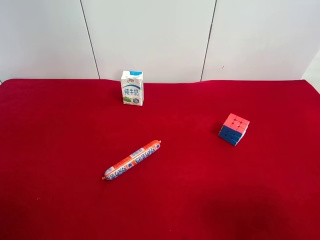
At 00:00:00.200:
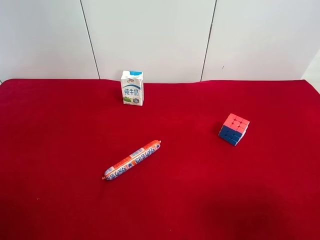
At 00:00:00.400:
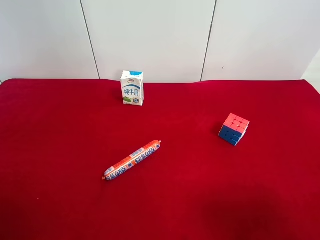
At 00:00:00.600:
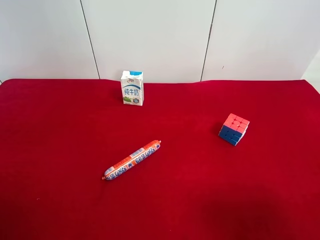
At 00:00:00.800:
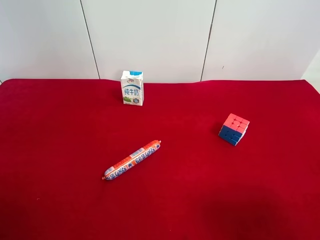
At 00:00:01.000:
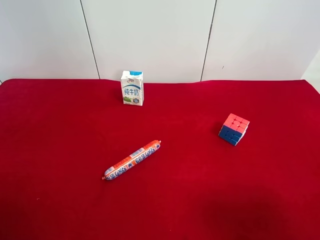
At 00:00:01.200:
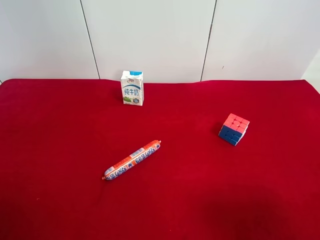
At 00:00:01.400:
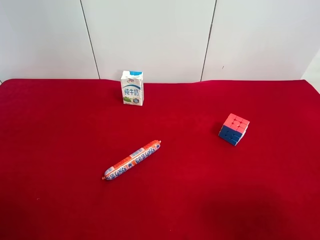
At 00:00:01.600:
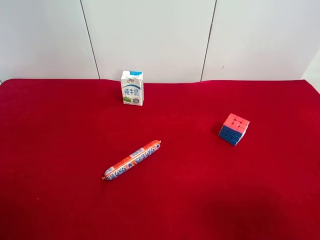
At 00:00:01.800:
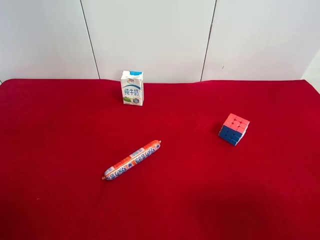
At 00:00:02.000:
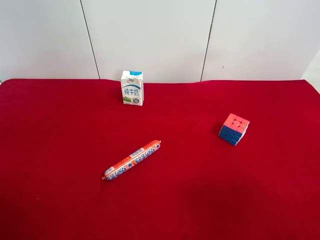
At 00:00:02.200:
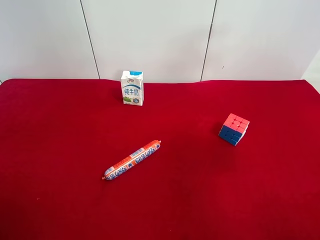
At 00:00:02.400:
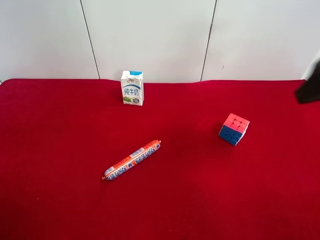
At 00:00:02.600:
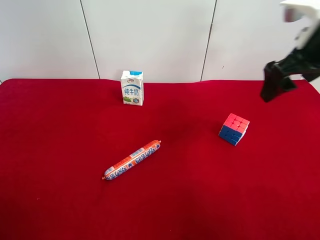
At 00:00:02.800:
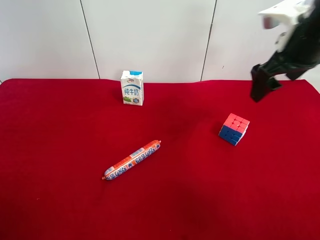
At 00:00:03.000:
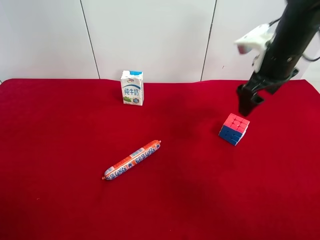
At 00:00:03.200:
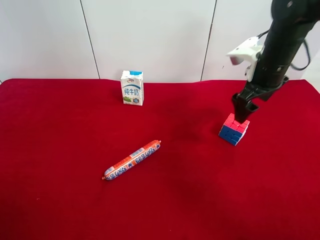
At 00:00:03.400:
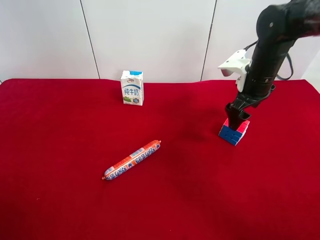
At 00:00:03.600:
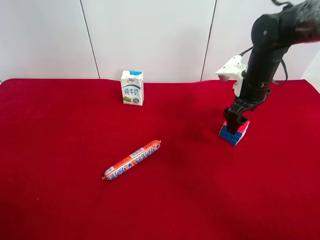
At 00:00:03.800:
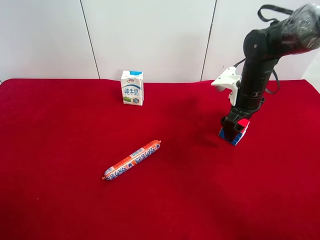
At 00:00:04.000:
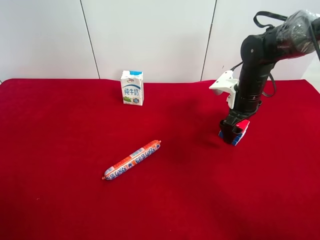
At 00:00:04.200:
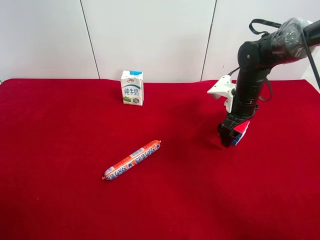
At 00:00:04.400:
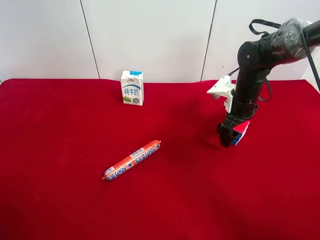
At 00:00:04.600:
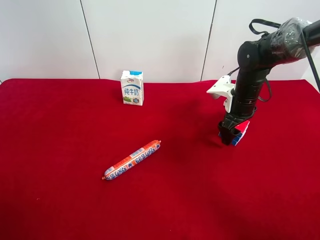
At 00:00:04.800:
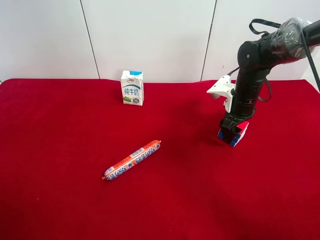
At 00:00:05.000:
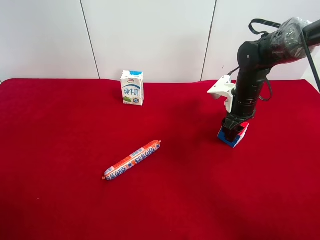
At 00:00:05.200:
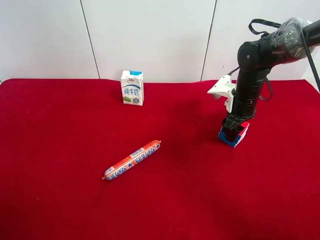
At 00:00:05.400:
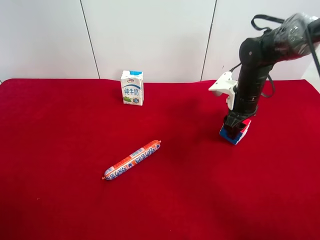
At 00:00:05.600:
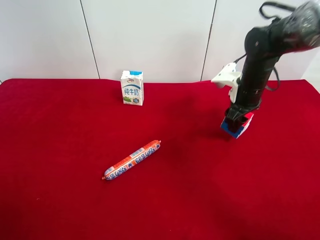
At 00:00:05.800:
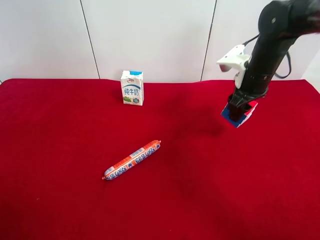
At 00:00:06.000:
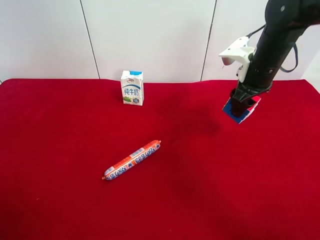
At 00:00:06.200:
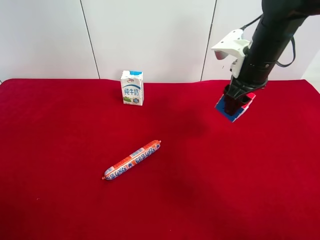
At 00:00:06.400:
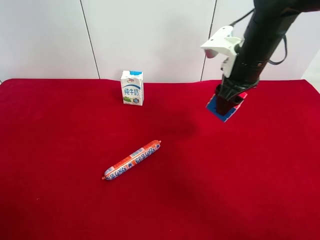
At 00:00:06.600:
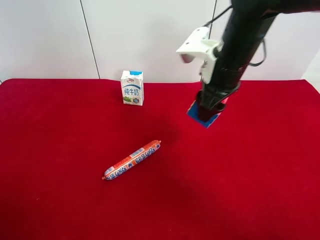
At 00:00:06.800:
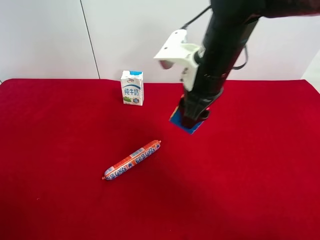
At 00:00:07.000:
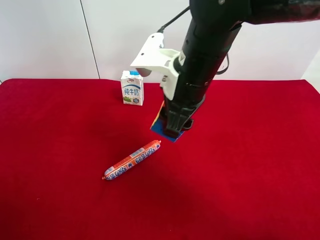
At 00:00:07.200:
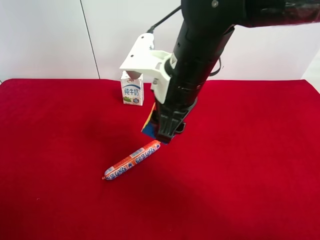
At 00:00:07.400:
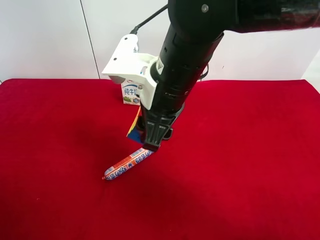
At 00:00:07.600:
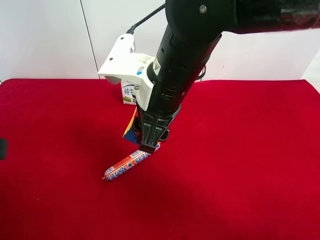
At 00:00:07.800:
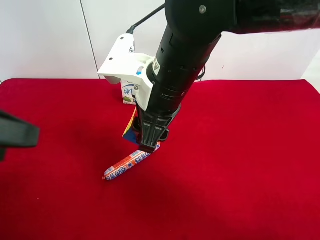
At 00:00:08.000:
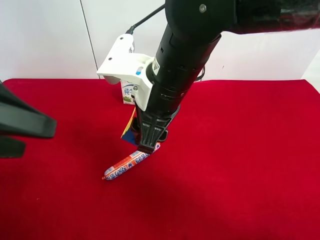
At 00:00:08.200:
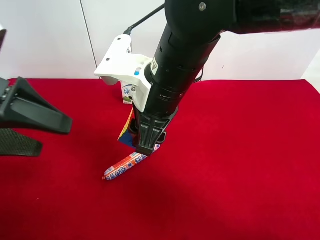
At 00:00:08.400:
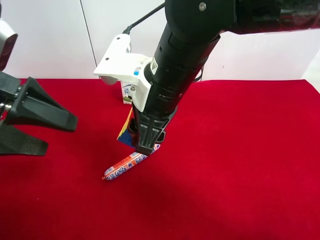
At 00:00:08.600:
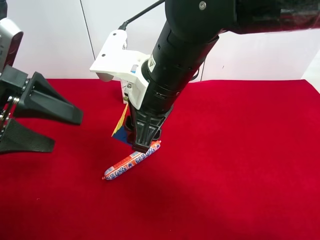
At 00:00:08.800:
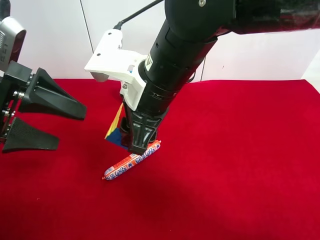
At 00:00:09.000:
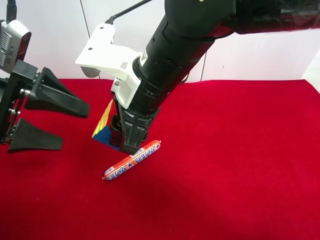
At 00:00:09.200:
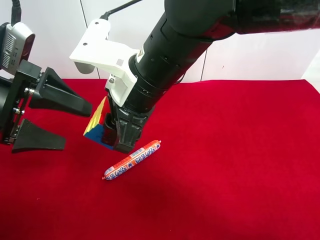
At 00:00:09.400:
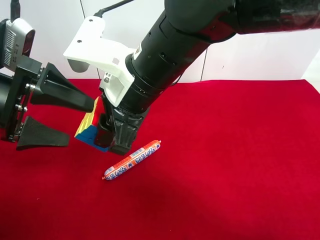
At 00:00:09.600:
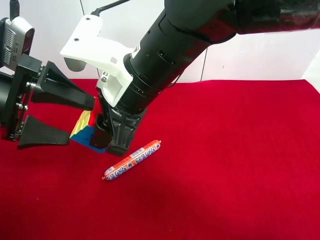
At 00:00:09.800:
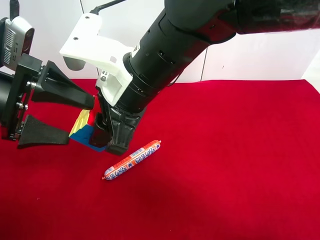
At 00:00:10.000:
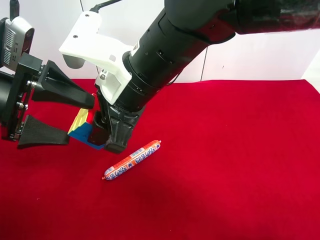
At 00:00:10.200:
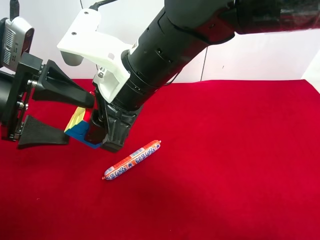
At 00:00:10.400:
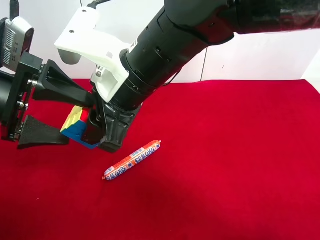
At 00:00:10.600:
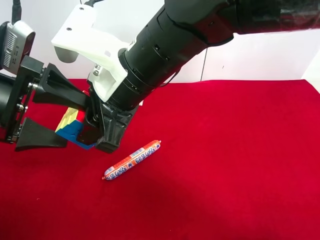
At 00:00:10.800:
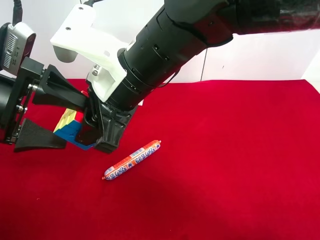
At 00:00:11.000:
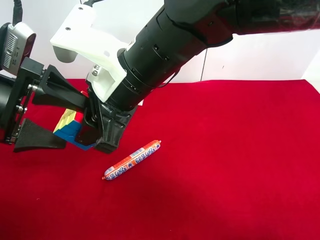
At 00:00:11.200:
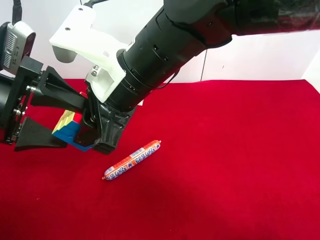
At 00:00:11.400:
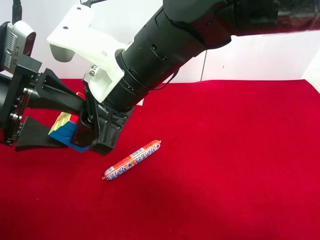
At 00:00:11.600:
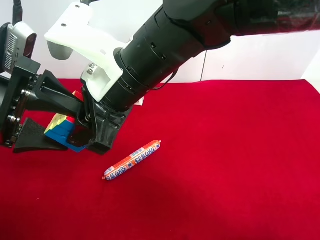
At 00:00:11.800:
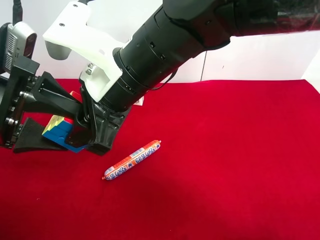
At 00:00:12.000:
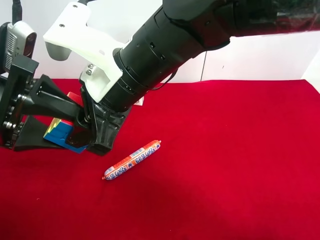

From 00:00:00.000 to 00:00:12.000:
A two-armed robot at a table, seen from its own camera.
Task of the whole recording: use the right gripper to pick up the item and transfer it from the right gripper to the left gripper.
Step, from 00:00:00.000 to 00:00:04.800: Use the right gripper to grab the Rubik's Cube on the right side of the table.
From 00:00:00.000 to 00:00:01.600: Neither gripper changes place.
From 00:00:01.600 to 00:00:03.000: The right gripper moves forward, approximately 35 cm.
From 00:00:03.000 to 00:00:04.400: The right gripper is displaced downward by approximately 15 cm.
From 00:00:04.400 to 00:00:06.000: The right gripper goes approximately 10 cm upward, and closes.
From 00:00:06.000 to 00:00:07.600: The right gripper goes some 25 cm to the left and backward; the left gripper moves forward, some 10 cm.
From 00:00:07.600 to 00:00:09.000: The left gripper goes some 10 cm forward and downward.
From 00:00:09.000 to 00:00:10.400: The grippers move only a little.
From 00:00:10.400 to 00:00:12.000: The left gripper closes its fingers.

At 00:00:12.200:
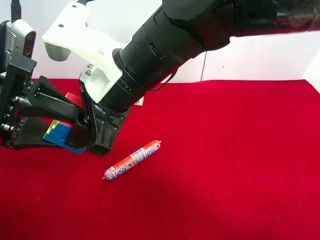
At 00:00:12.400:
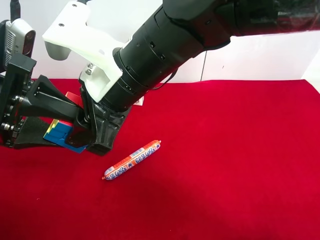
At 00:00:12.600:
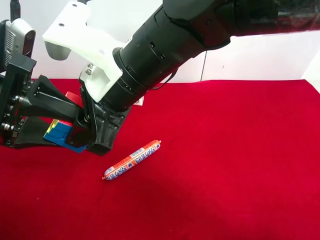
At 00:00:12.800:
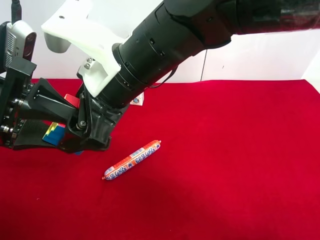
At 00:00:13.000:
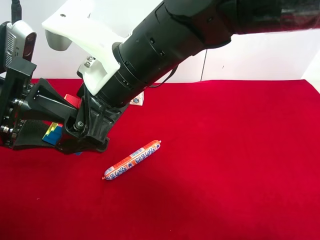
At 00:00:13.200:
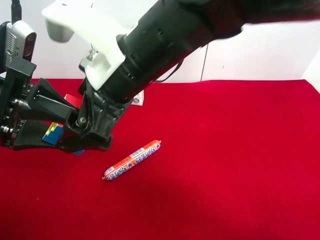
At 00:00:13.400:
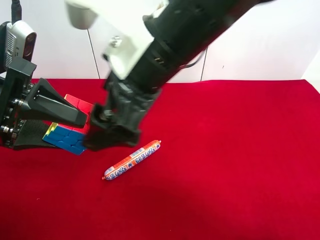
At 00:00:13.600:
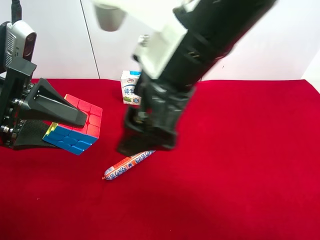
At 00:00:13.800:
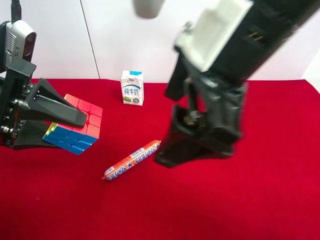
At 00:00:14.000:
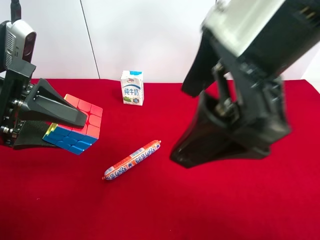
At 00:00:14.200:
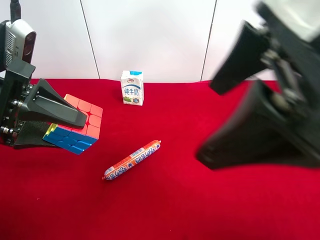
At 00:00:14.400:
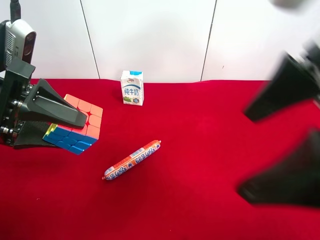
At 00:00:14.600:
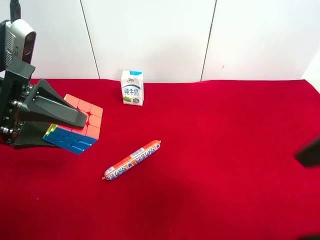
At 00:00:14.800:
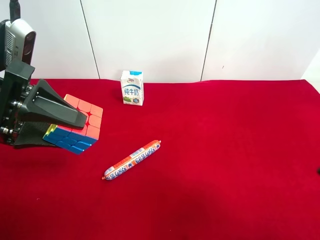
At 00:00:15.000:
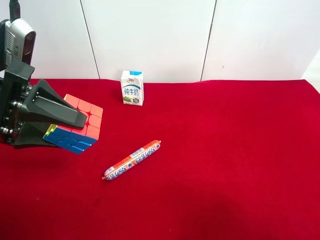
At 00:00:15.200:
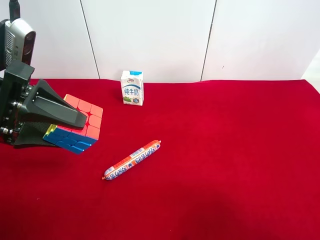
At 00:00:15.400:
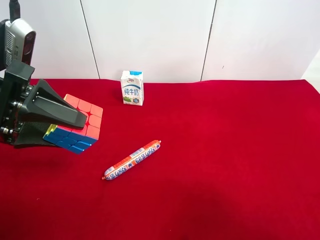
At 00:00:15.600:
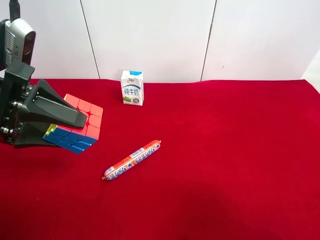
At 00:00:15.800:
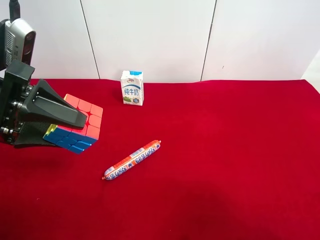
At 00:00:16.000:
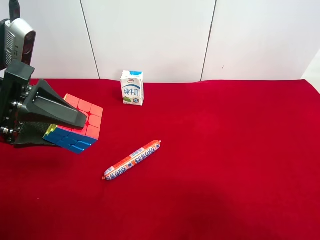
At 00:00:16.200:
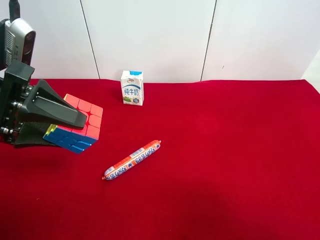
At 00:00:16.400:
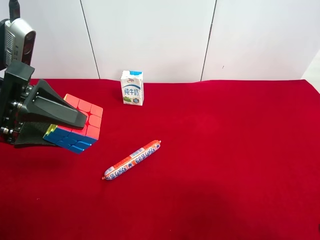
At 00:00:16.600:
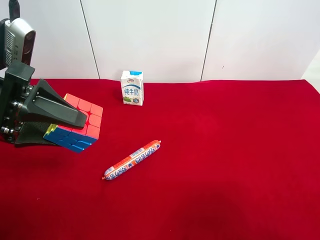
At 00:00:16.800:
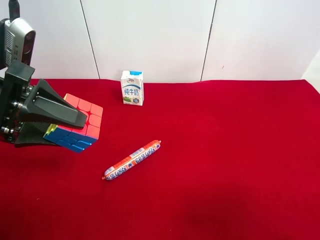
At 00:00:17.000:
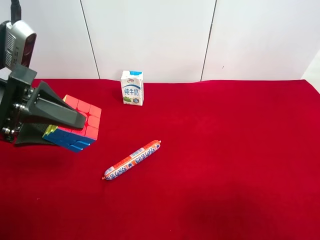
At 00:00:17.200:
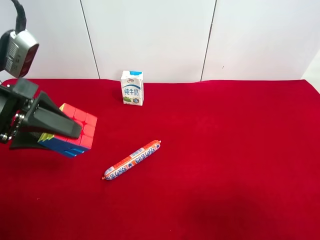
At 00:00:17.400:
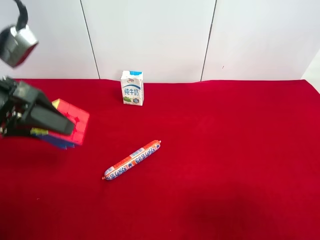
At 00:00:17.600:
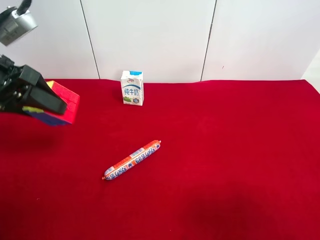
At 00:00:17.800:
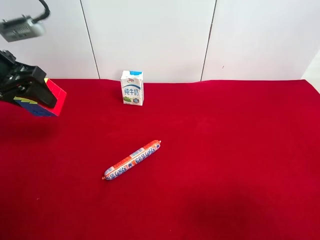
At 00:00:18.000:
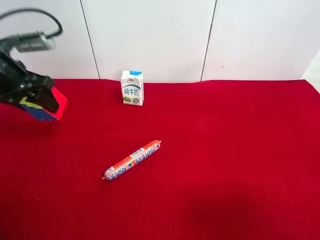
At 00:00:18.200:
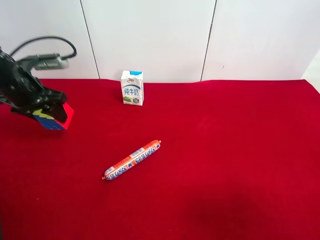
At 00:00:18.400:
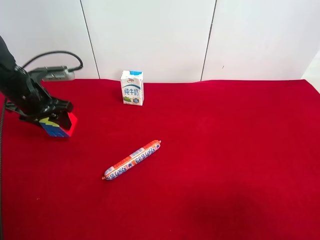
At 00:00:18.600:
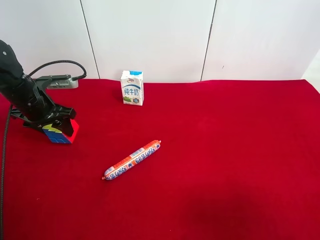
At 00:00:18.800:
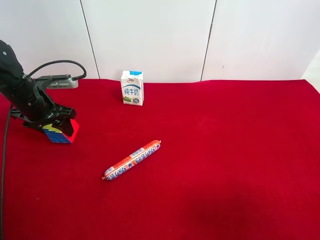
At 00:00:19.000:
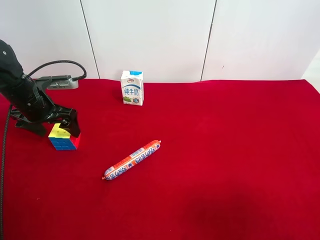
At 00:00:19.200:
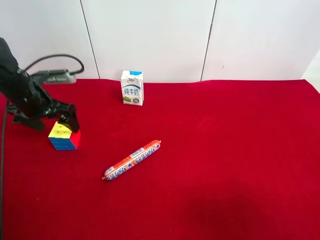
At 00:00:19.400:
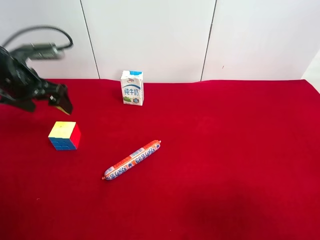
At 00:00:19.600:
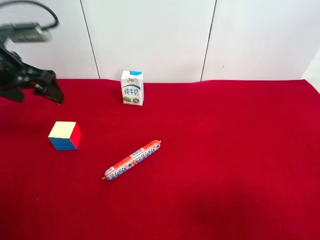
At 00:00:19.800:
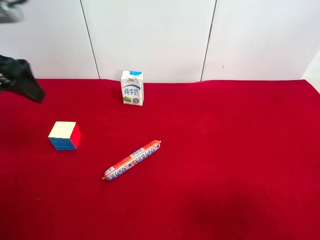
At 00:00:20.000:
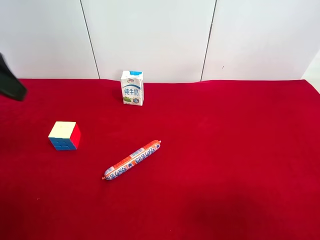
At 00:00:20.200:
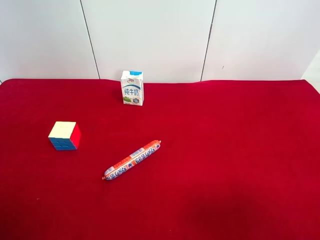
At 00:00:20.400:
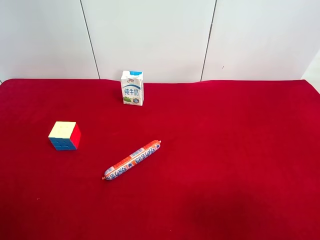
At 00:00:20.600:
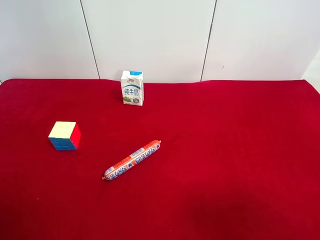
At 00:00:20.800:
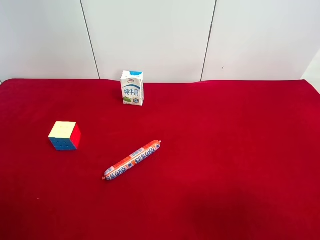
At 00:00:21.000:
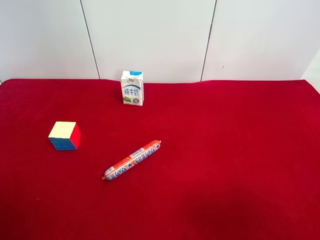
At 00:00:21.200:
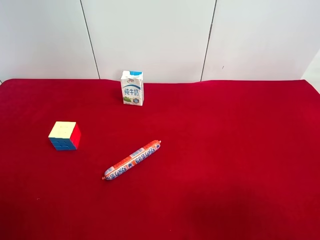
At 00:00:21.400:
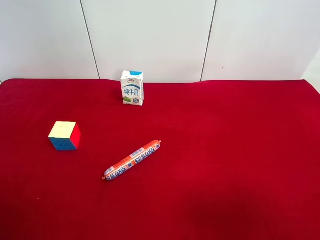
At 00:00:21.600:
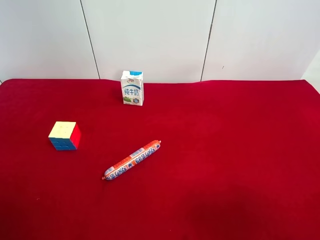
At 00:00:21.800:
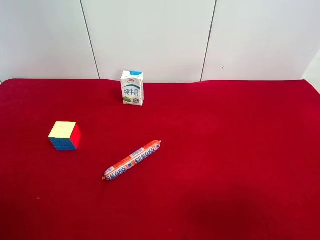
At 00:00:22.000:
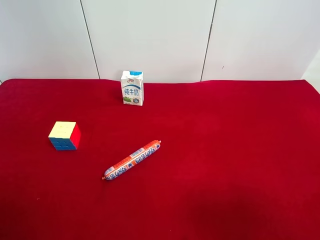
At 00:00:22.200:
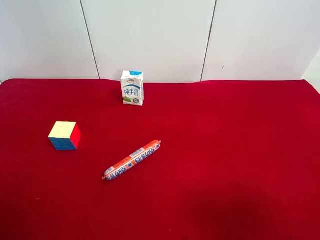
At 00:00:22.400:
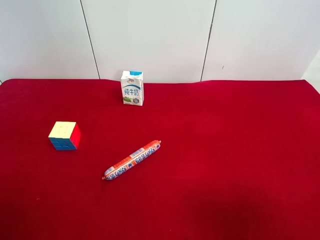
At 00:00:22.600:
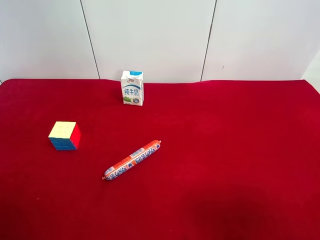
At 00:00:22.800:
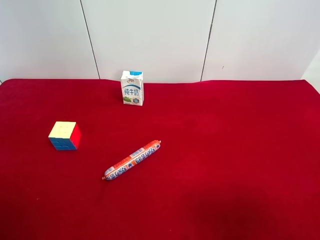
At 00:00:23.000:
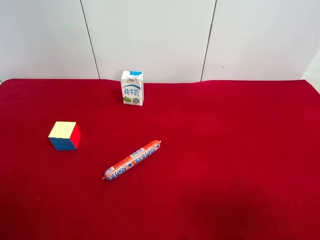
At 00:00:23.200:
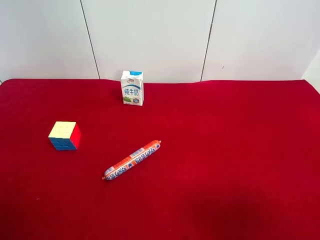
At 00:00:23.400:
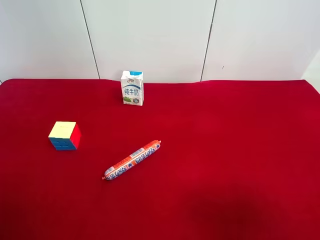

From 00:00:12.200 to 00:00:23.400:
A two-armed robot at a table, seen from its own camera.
Task of the whole recording: use the right gripper to pick up the item and transfer it from the right gripper to the left gripper.
Step, from 00:00:13.000 to 00:00:18.800: The left gripper places Rubik's Cube on the left side of the table.
From 00:00:12.200 to 00:00:13.800: The right gripper travels to the right, upward and backward by roughly 15 cm, and opens up.
From 00:00:13.800 to 00:00:15.400: The right gripper travels to the right and backward by approximately 25 cm.
From 00:00:17.000 to 00:00:18.600: The left gripper moves forward and downward, about 20 cm.
From 00:00:18.600 to 00:00:20.200: The left gripper heads upward and backward, covering some 30 cm, and opens its fingers.
